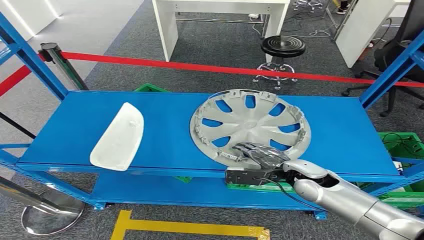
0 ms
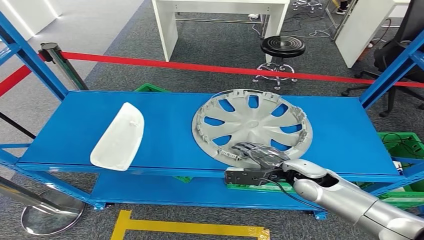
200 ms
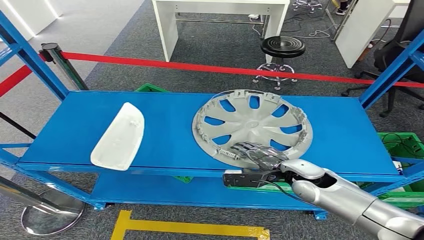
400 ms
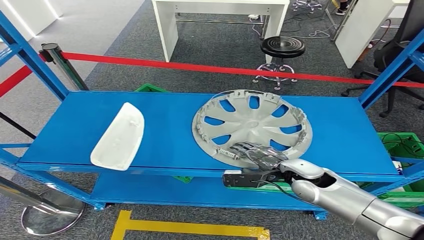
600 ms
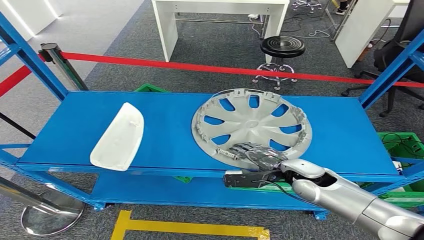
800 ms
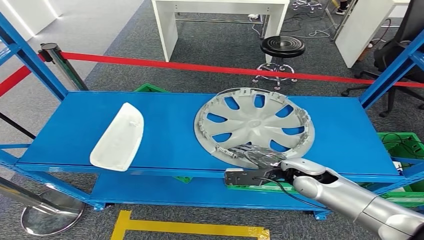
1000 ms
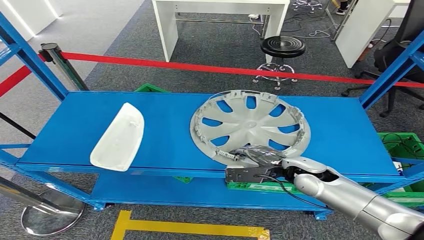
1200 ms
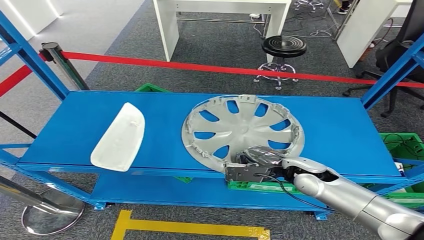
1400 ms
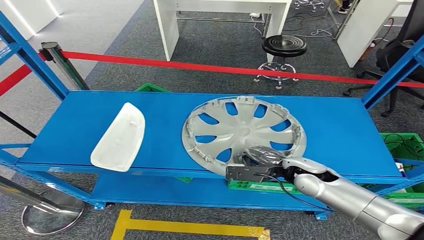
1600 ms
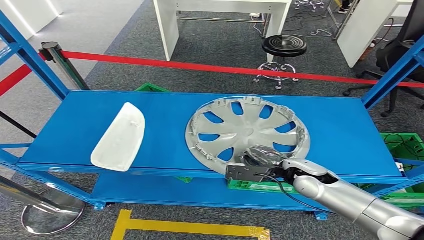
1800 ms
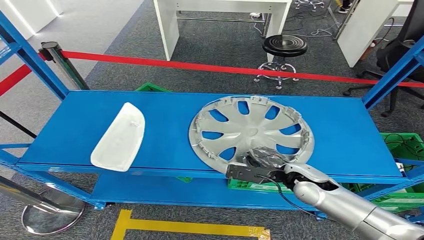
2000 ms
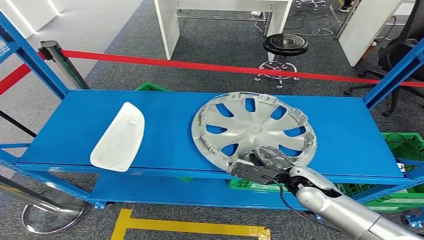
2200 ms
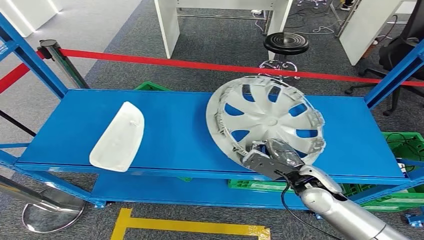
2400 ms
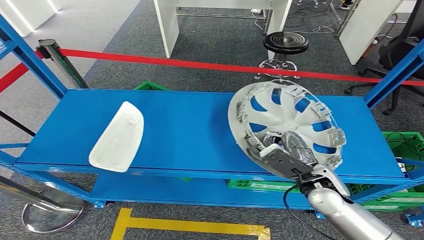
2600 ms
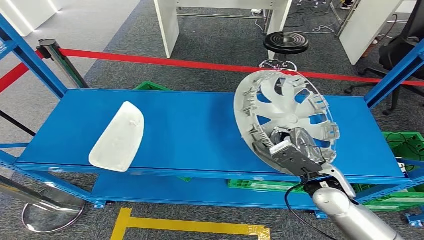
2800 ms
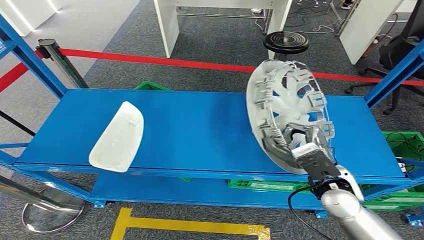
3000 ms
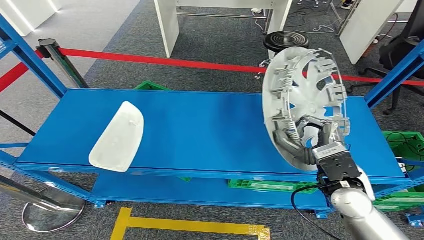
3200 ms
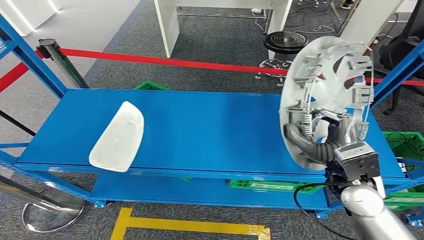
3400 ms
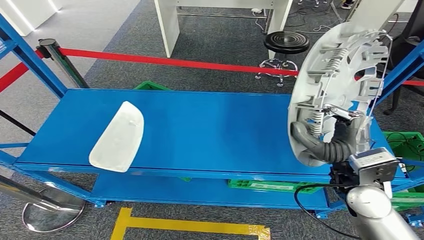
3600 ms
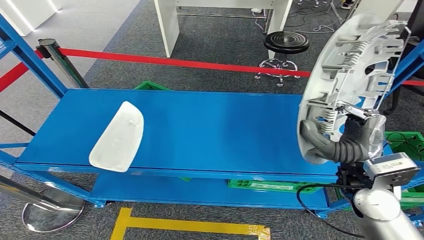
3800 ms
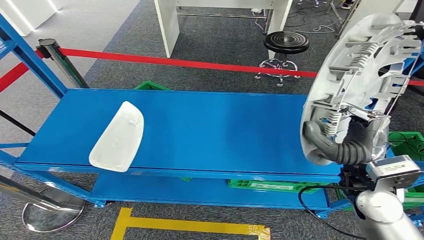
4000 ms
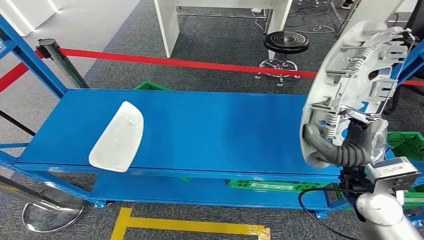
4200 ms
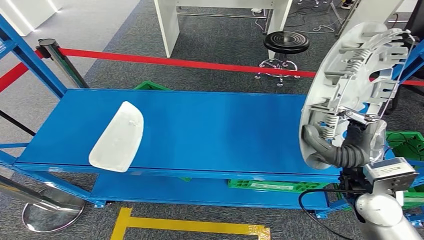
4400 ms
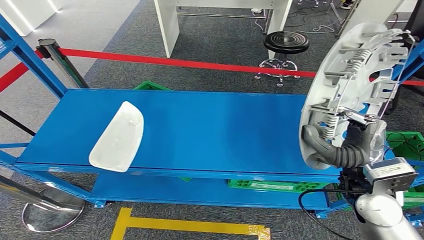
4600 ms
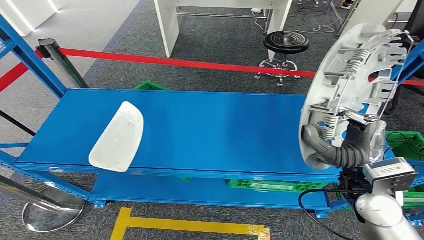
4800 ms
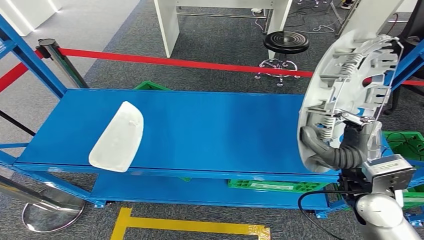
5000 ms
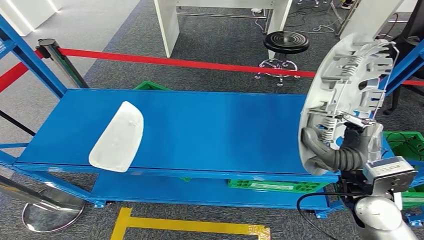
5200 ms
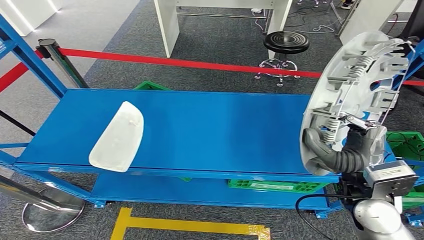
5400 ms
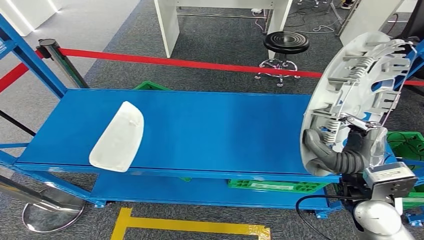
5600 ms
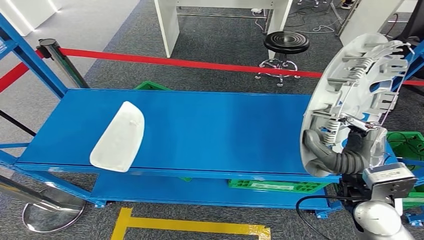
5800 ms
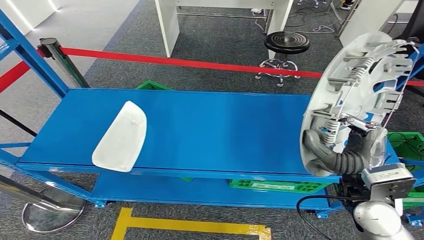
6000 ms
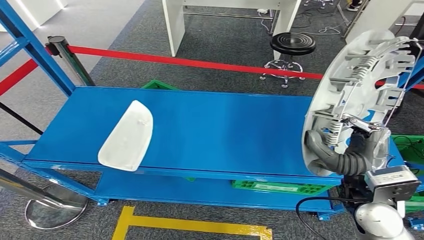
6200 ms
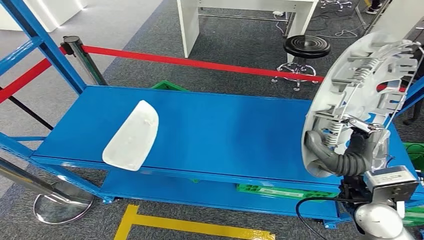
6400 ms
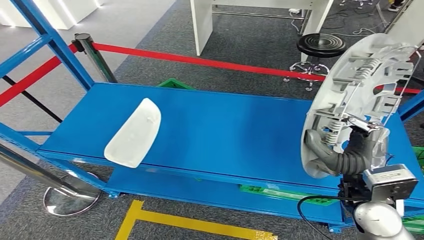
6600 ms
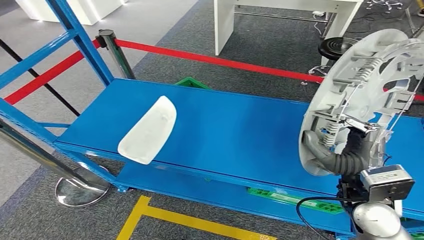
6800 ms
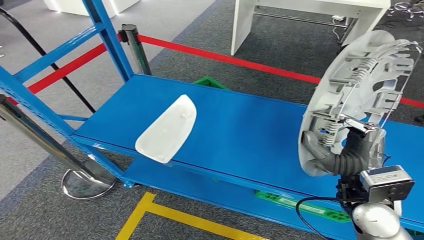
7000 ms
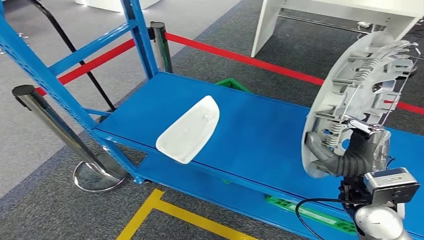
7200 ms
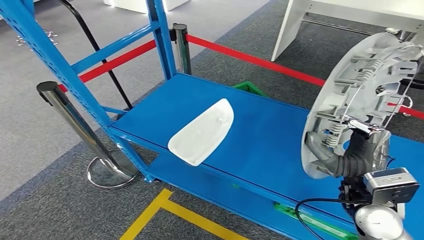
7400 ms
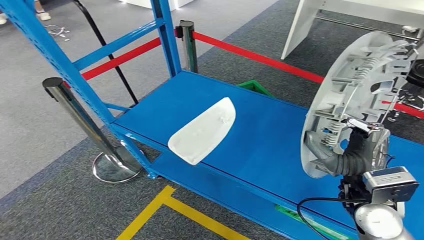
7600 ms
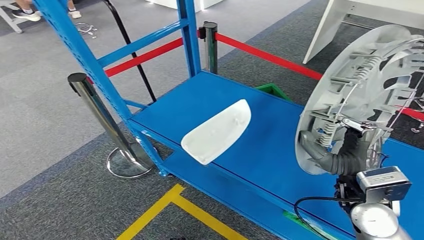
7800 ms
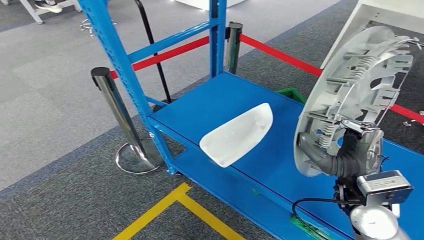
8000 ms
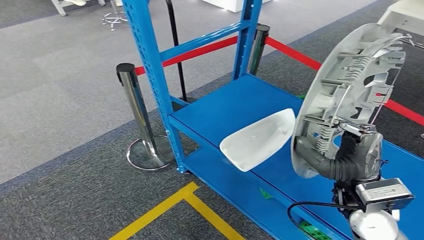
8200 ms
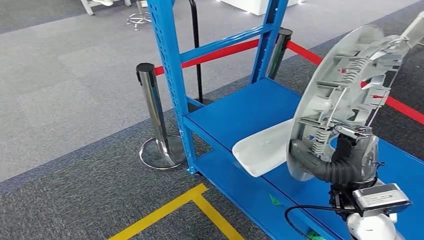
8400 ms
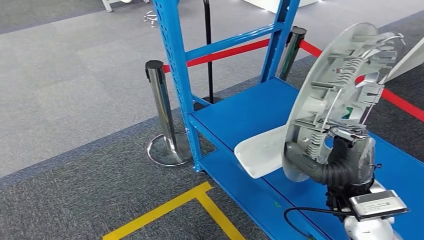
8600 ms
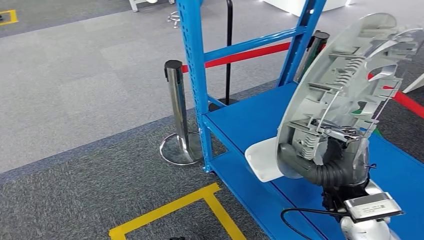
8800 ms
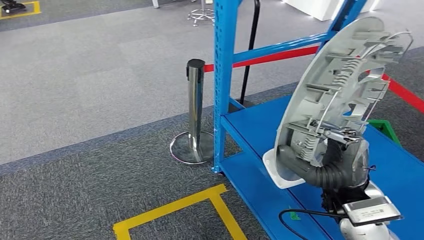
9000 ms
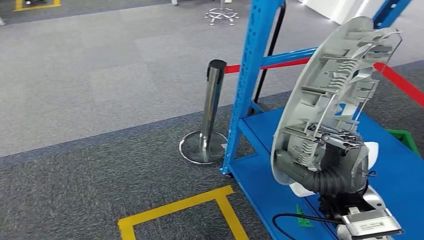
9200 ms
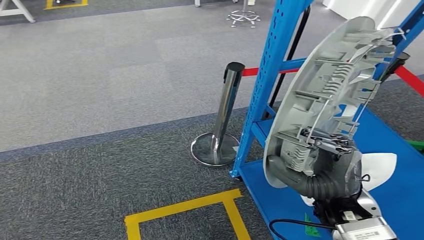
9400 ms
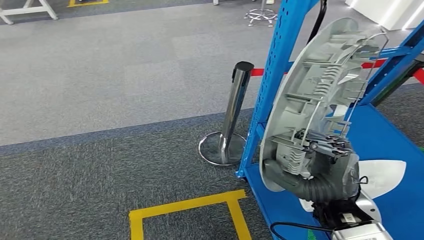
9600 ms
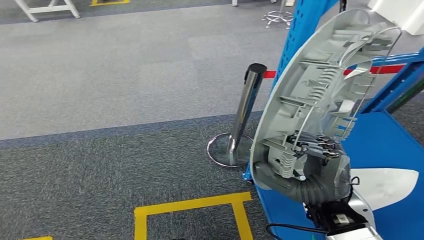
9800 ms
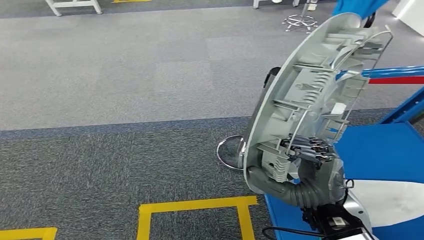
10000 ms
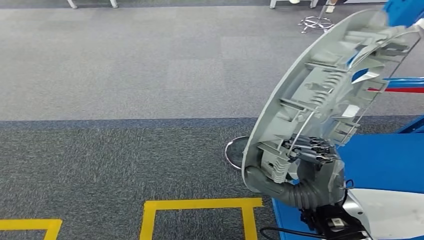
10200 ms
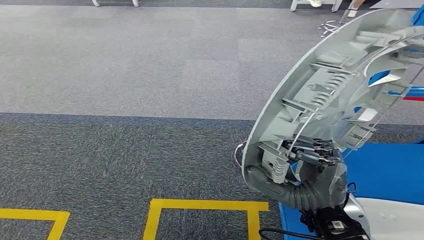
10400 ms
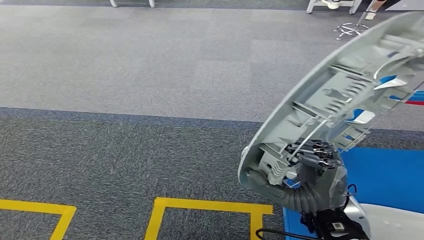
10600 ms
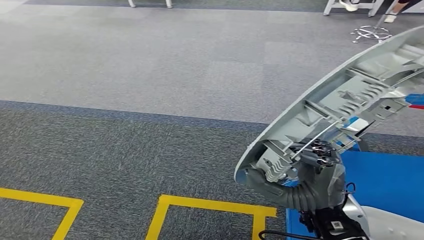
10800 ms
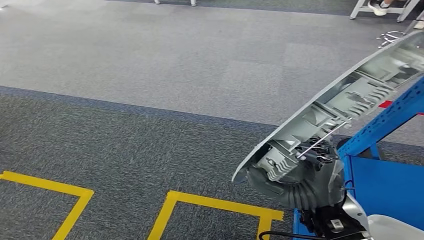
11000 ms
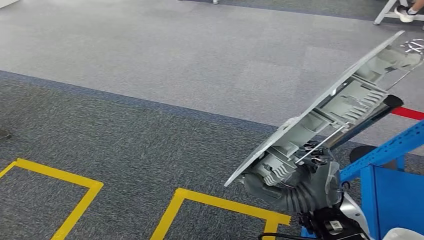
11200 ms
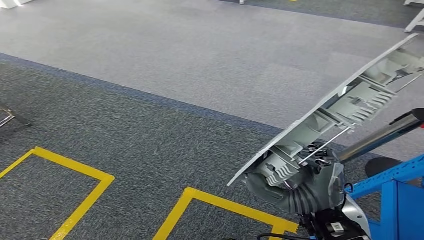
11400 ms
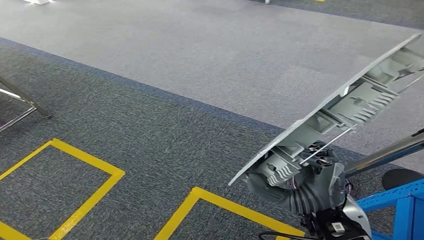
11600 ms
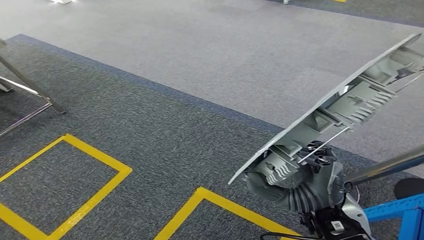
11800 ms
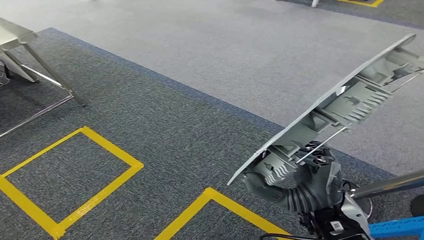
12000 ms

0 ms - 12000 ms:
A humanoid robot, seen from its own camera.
Step, 0 ms - 5000 ms: Take small components from the rack.
4400 ms - 6000 ms: The hands stay close to where they were, moving slightly.

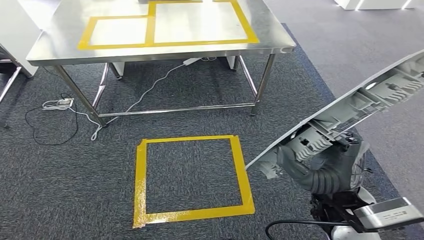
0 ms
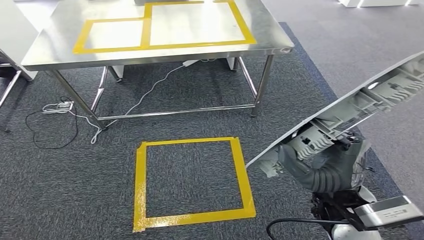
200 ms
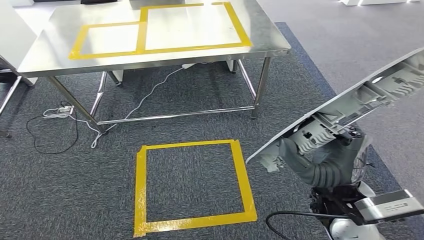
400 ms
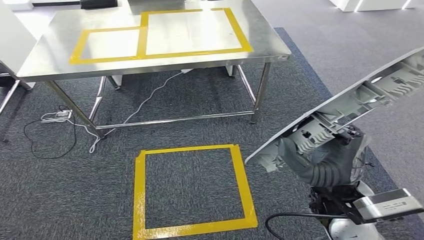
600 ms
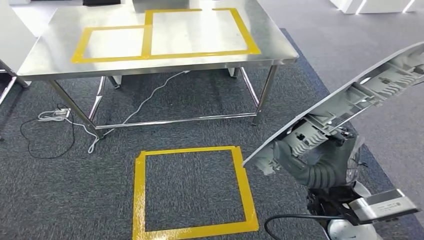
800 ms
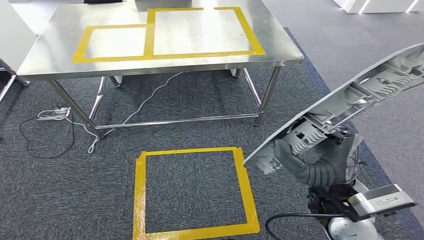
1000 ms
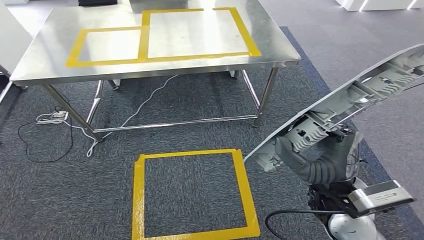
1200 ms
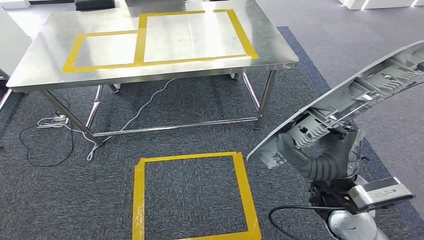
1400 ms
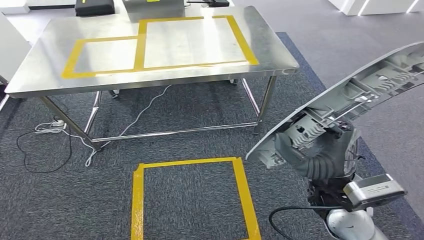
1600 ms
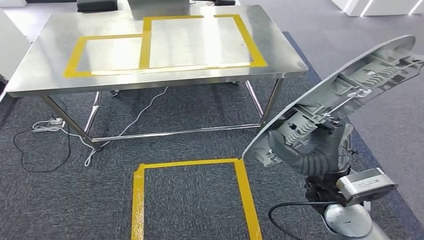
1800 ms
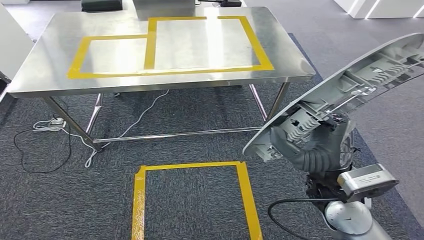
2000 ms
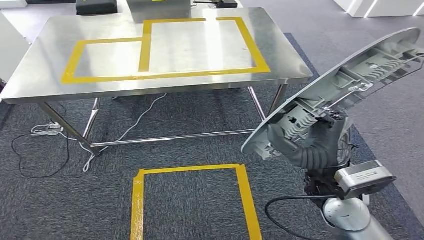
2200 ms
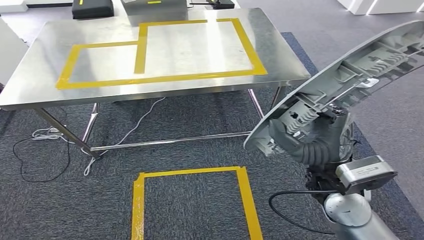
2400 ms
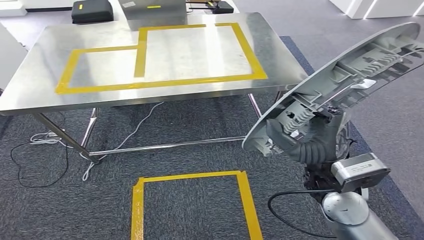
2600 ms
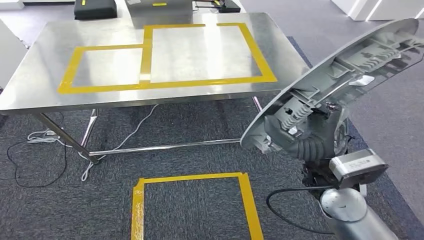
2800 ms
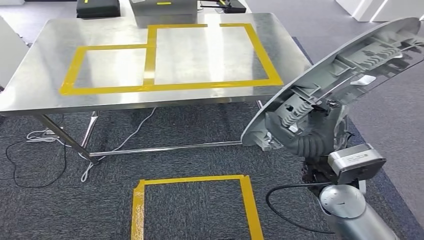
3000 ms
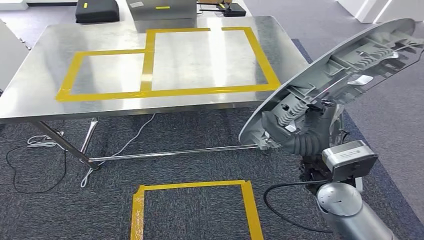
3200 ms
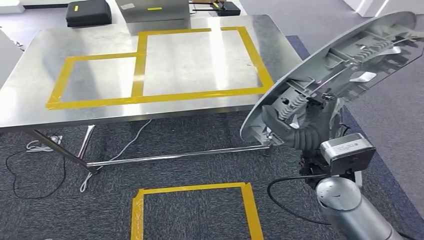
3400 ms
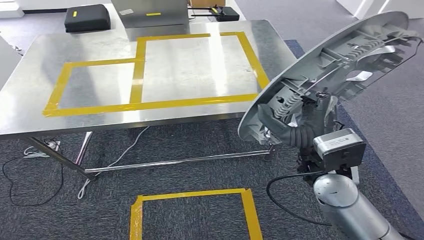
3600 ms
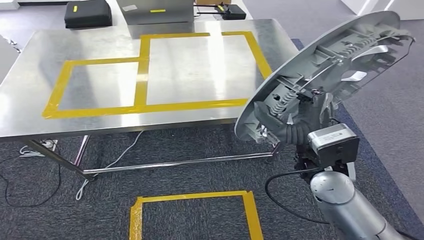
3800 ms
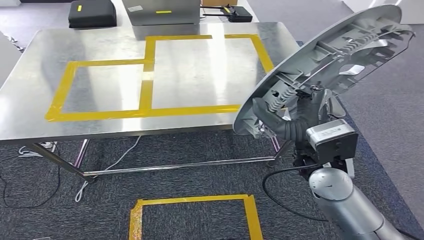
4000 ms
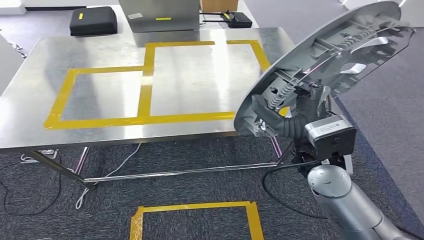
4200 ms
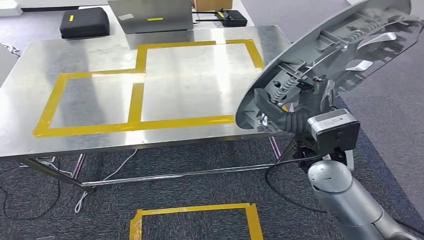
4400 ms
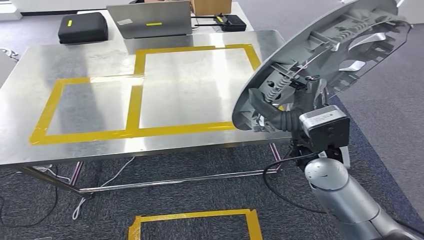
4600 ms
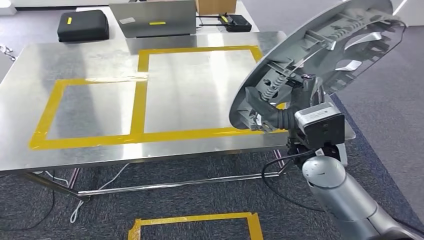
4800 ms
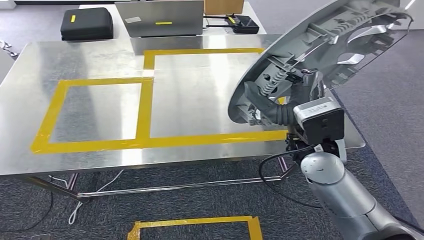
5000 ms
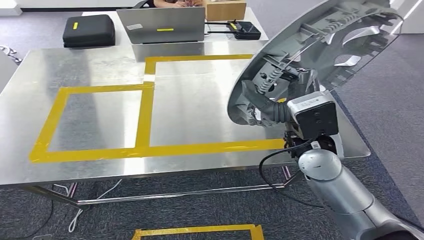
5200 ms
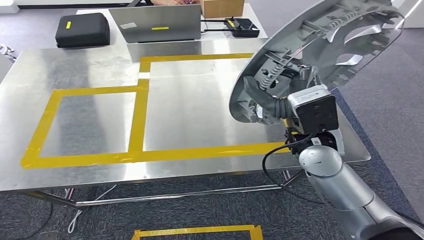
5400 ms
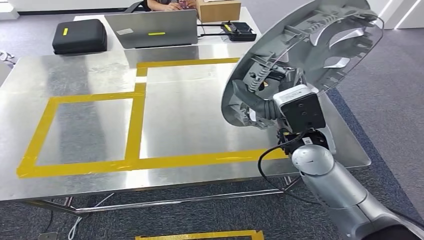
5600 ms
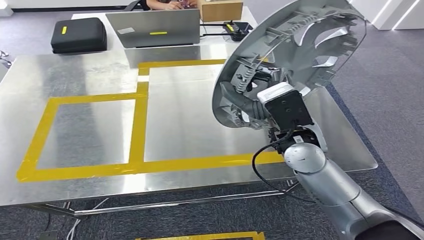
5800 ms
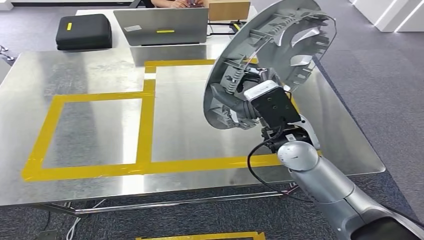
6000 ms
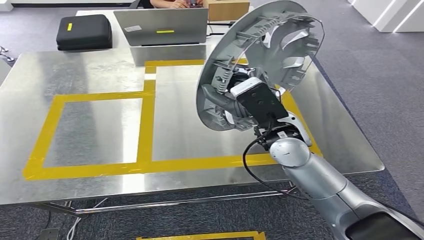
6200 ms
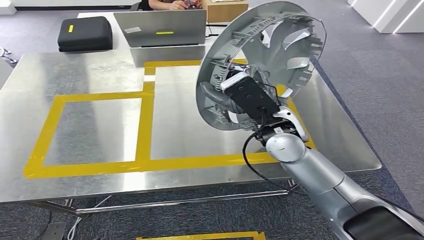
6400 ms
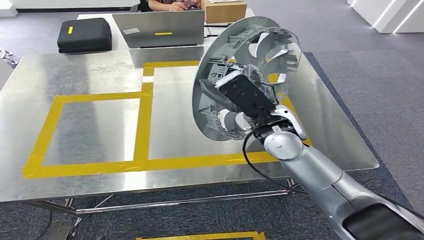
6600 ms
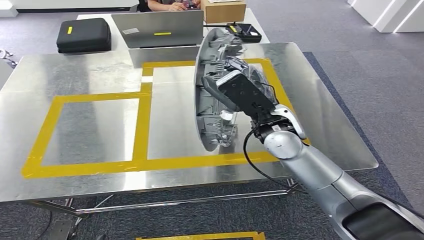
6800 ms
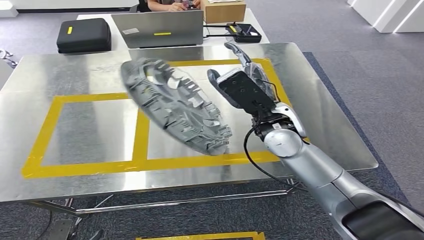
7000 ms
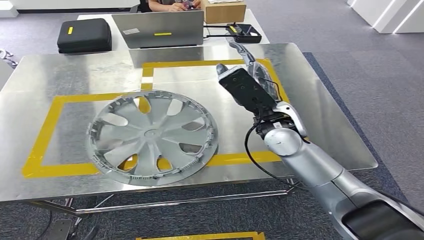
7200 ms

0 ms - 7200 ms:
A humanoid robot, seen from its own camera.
Step, 0 ms - 3400 ms: Move the small parts to the workbench.
